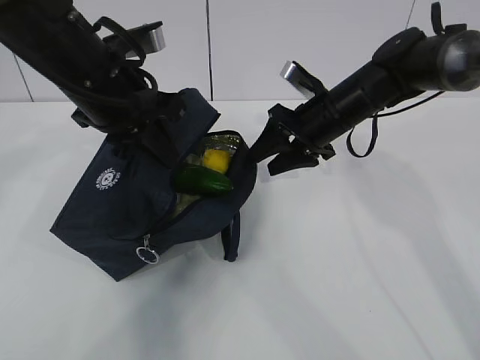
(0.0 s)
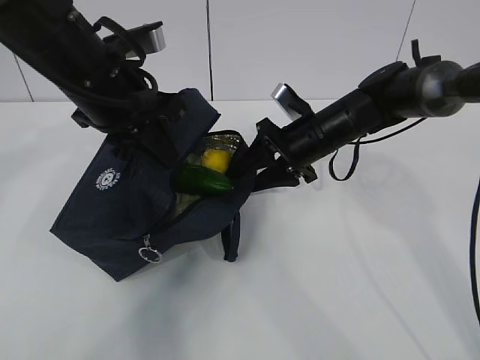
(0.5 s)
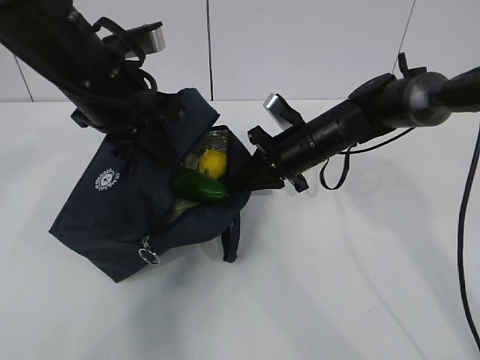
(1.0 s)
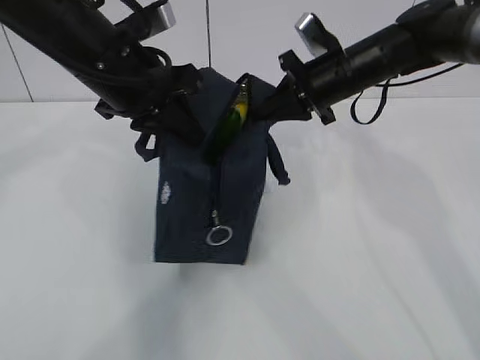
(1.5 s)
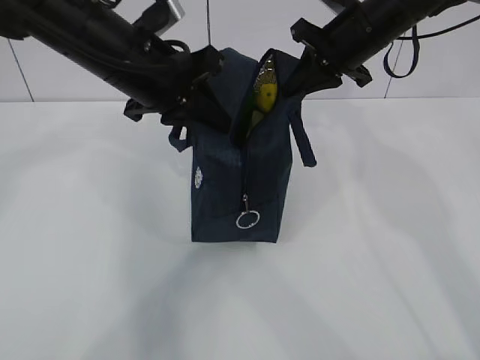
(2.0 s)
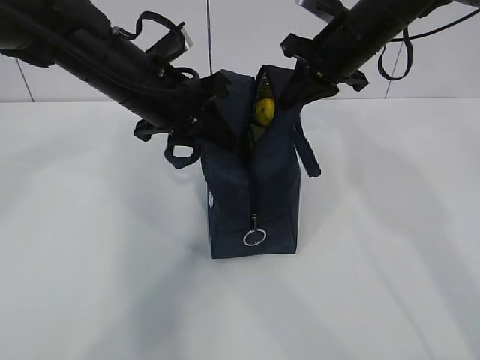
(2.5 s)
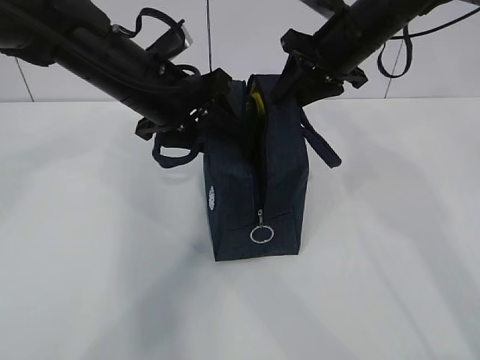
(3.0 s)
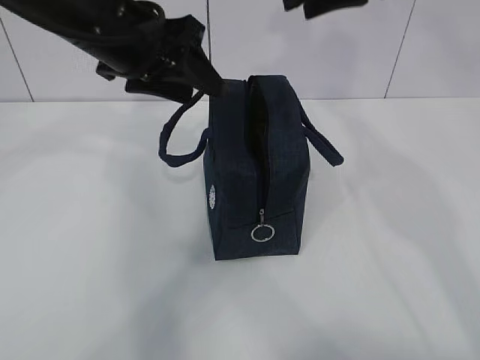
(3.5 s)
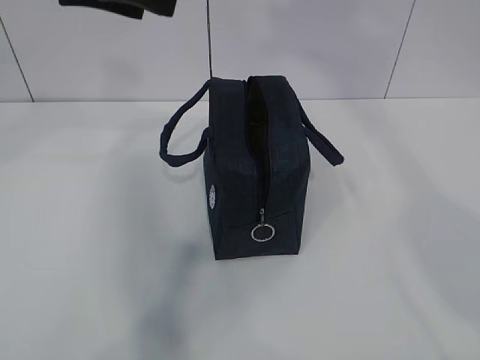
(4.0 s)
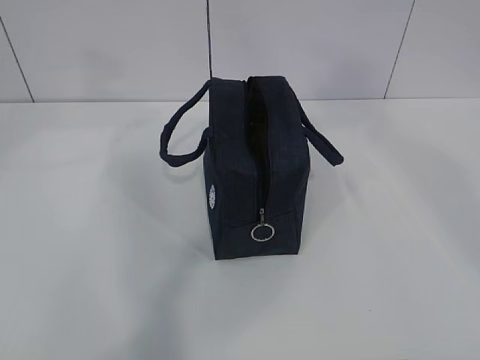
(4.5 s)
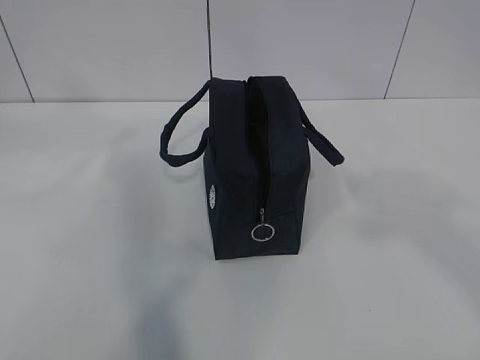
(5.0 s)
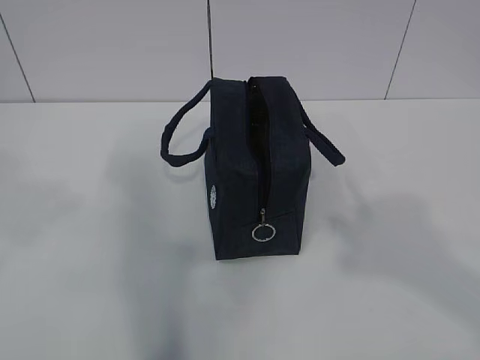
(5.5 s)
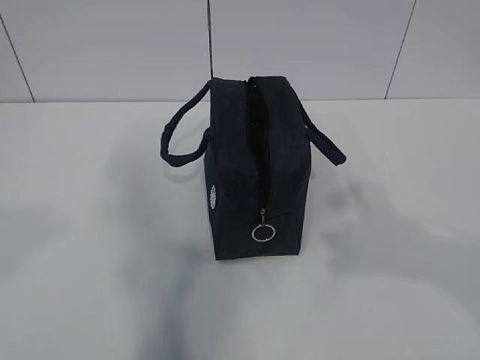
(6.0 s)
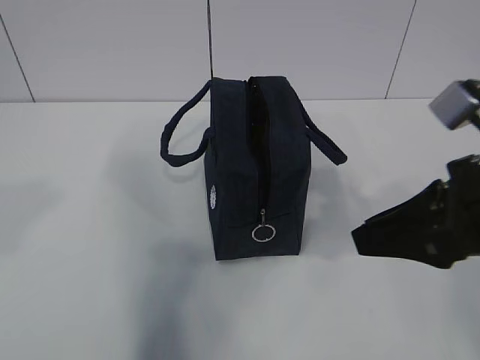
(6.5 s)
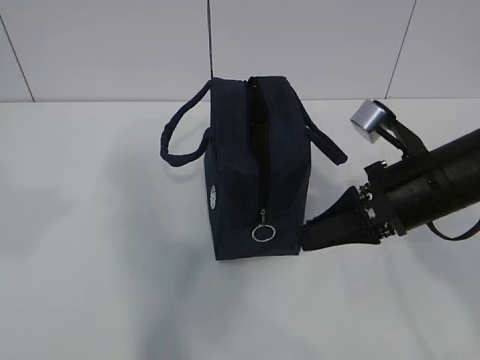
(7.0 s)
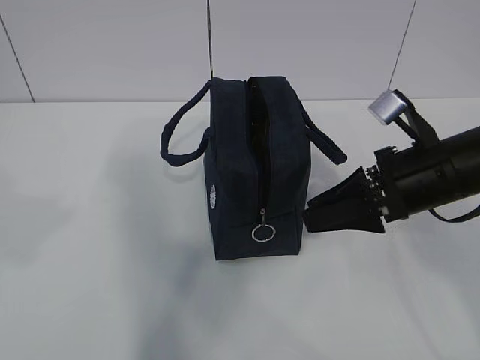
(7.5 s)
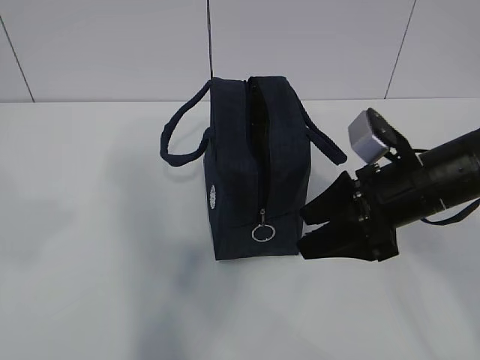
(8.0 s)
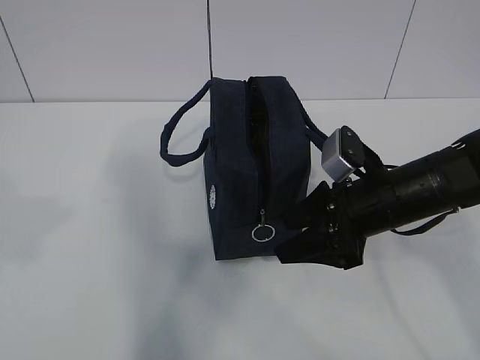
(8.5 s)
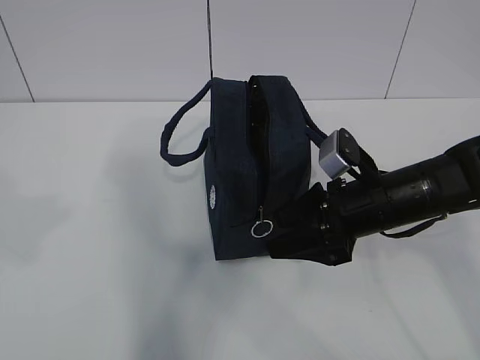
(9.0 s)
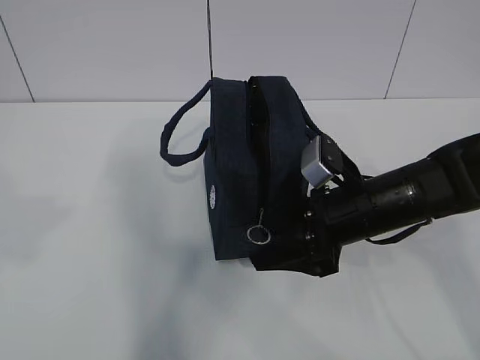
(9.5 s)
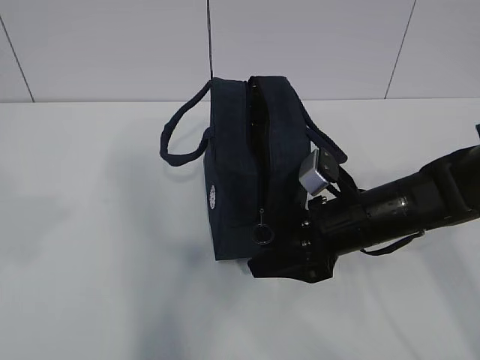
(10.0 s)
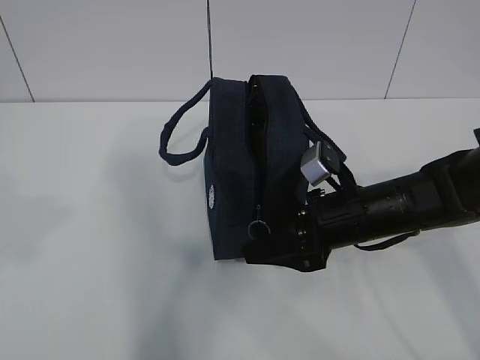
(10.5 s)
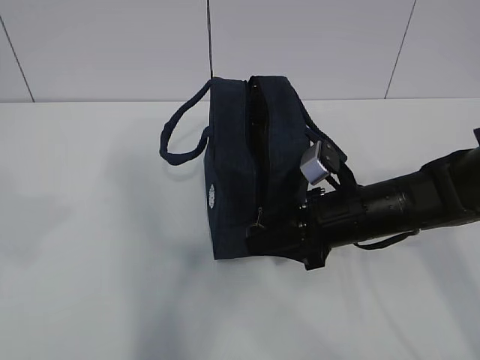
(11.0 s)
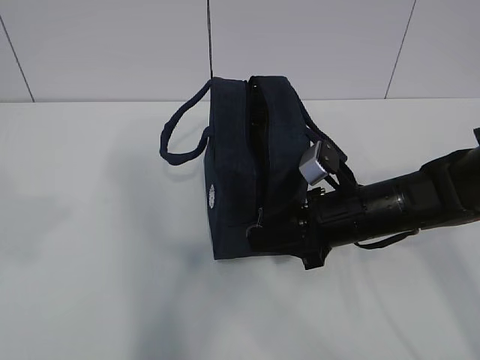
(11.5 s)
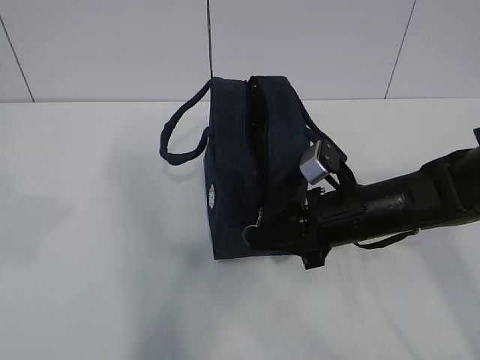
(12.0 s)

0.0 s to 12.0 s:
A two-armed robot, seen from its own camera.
0.0 to 2.0 s: The right gripper goes approximately 10 cm upward, and closes up.
2.0 to 4.0 s: The left gripper shifts about 10 cm upward, and opens up, while the right gripper is displaced upward and backward by some 35 cm, and opens.
4.0 to 6.0 s: The left gripper is displaced backward and to the left by approximately 30 cm; the right gripper moves downward and backward, about 30 cm.
6.0 to 8.0 s: The right gripper is displaced forward and downward by approximately 25 cm.
8.0 to 10.0 s: The right gripper shifts roughly 5 cm downward.
10.0 to 12.0 s: The right gripper closes its fingers.

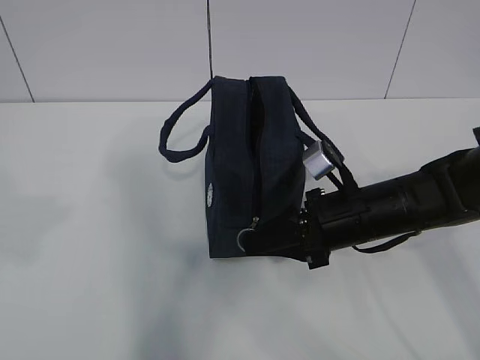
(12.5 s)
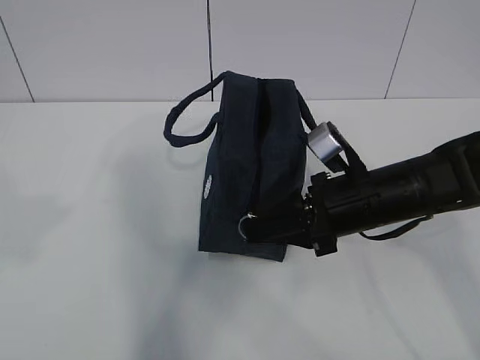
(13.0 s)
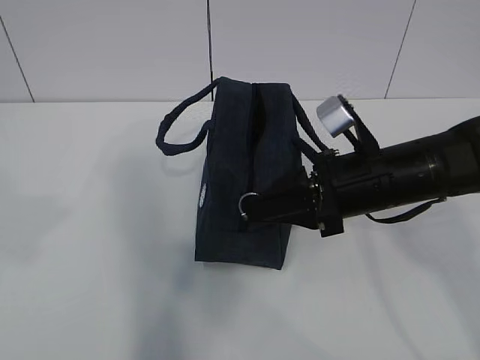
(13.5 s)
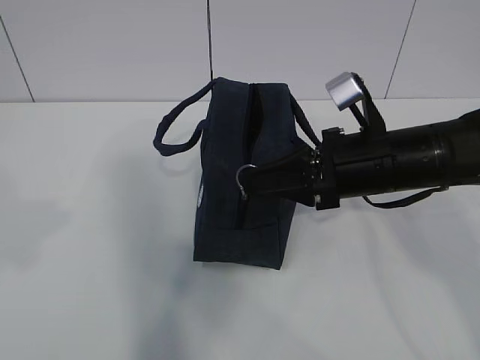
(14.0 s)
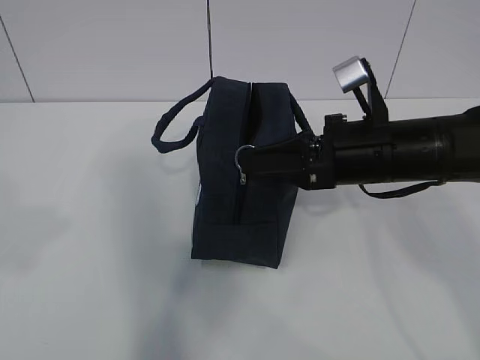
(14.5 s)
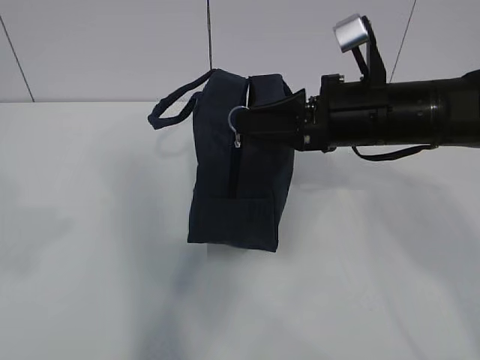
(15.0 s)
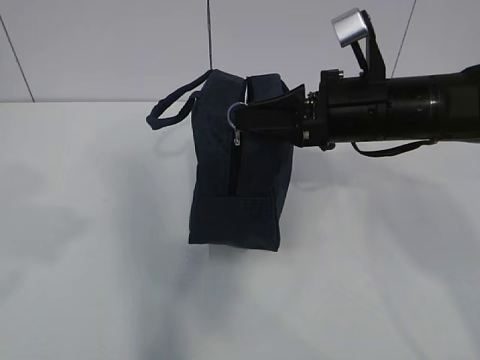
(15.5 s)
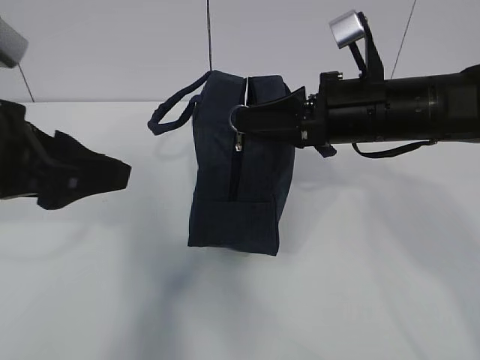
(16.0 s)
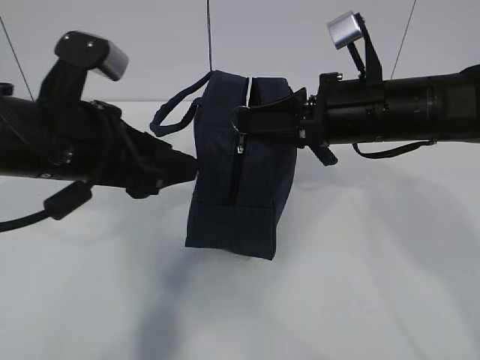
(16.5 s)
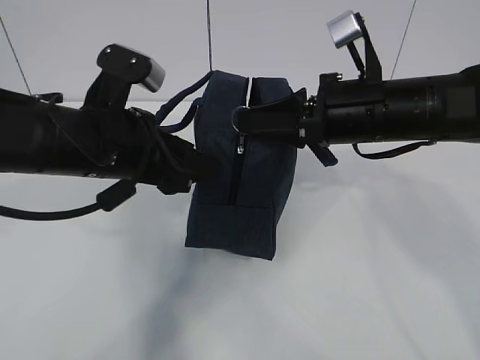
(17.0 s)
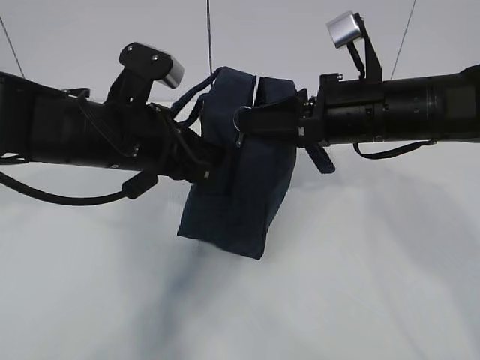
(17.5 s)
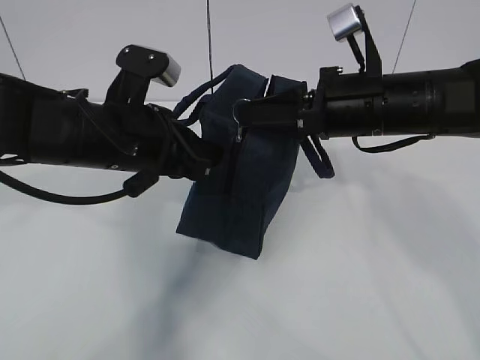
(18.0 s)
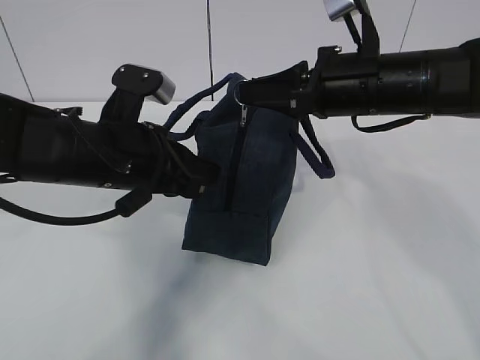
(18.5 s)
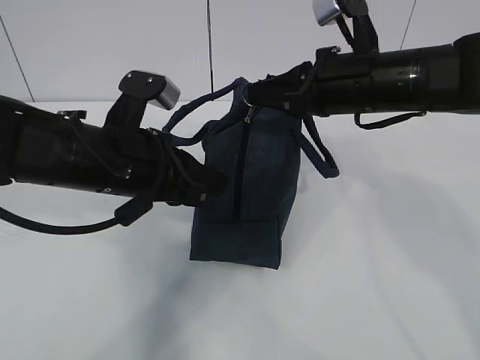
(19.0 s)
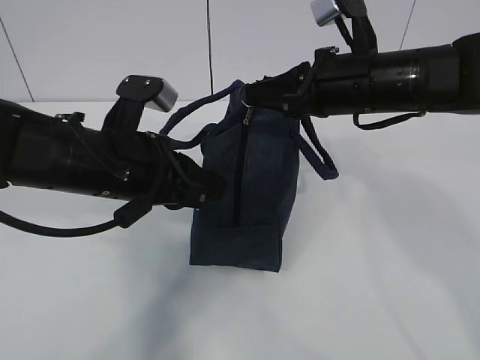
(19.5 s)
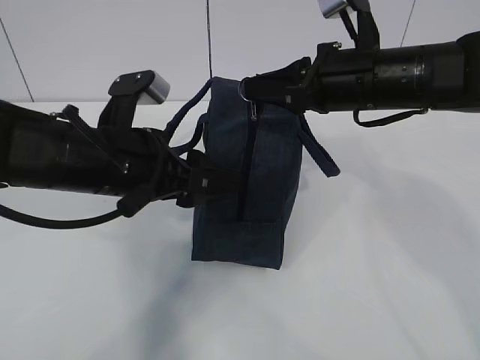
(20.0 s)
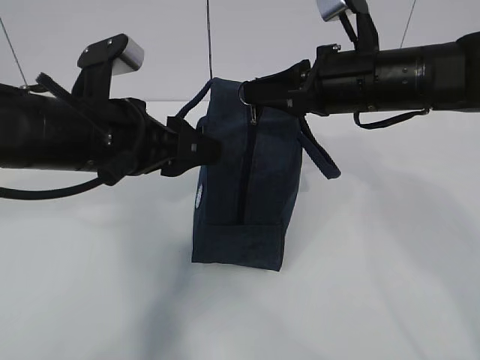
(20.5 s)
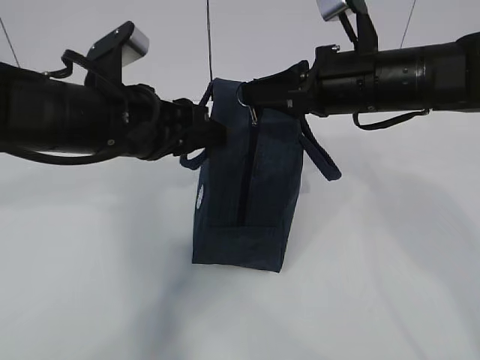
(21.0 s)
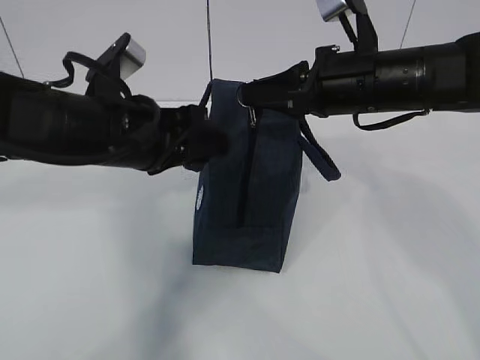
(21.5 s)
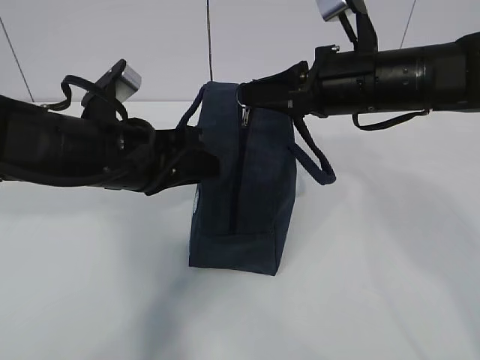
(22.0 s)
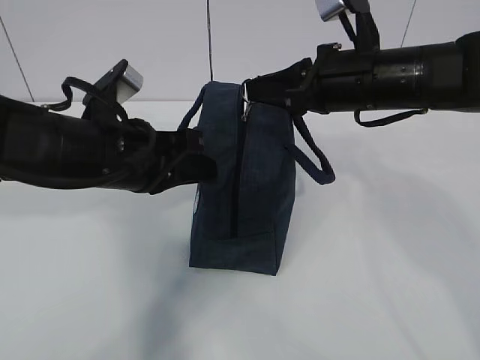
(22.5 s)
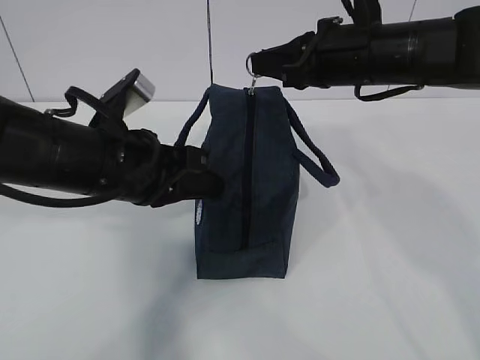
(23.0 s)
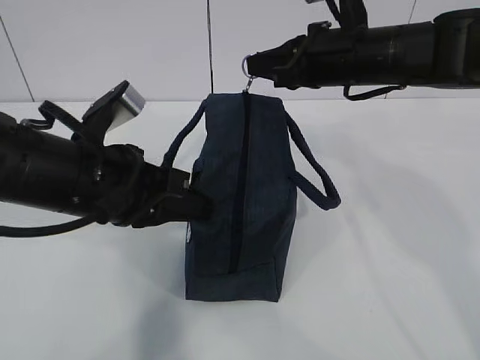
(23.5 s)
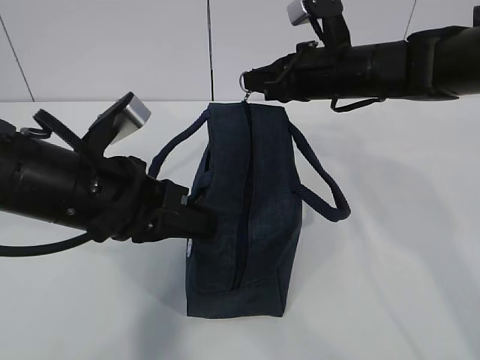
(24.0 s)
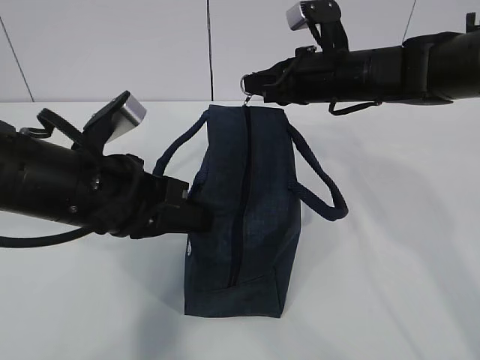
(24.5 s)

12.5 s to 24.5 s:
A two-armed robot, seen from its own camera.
Step, 21.0 to 21.5 s: Grab the lunch bag with your left hand.
12.5 to 14.5 s: The right gripper goes about 10 cm upward.
14.5 to 16.5 s: The left gripper goes approximately 25 cm forward, downward and to the right, and opens up.
16.5 to 18.5 s: The left gripper moves some 5 cm, and closes its fingers.
18.5 to 20.5 s: The left gripper opens up.
20.5 to 22.5 s: The left gripper closes up.
22.5 to 24.5 s: The right gripper shifts some 5 cm forward.

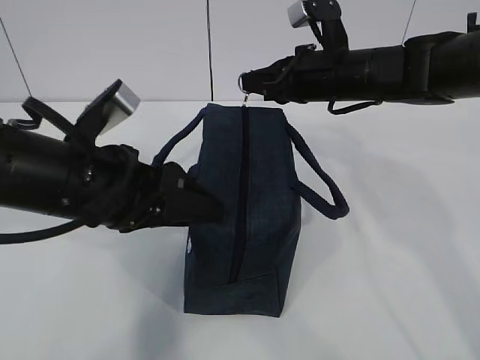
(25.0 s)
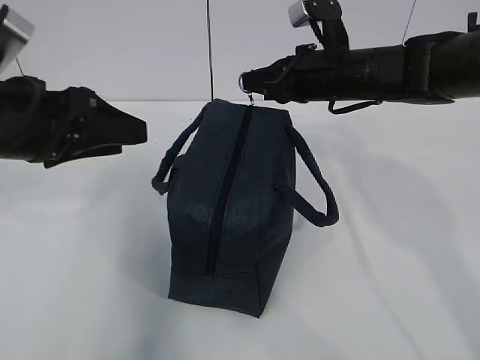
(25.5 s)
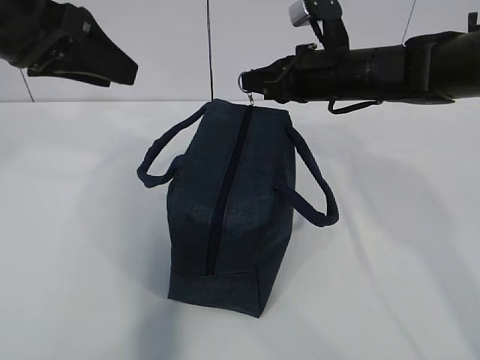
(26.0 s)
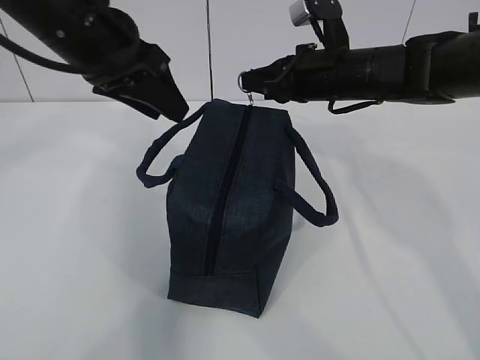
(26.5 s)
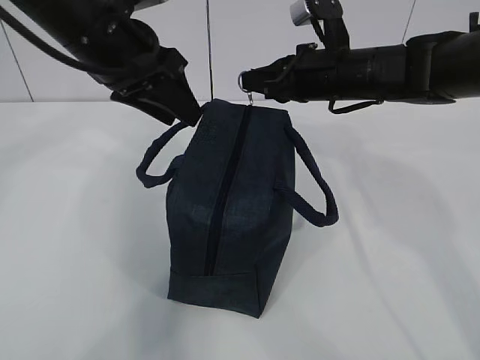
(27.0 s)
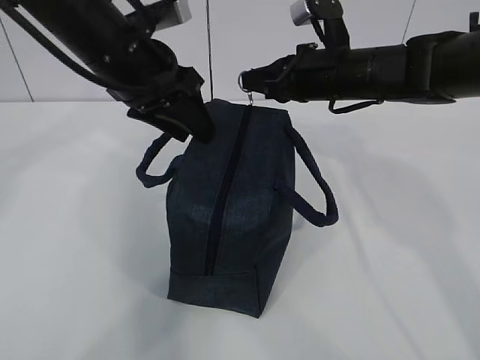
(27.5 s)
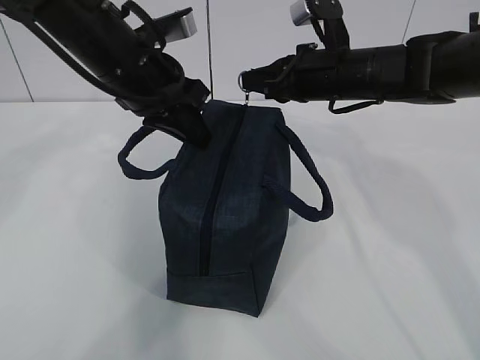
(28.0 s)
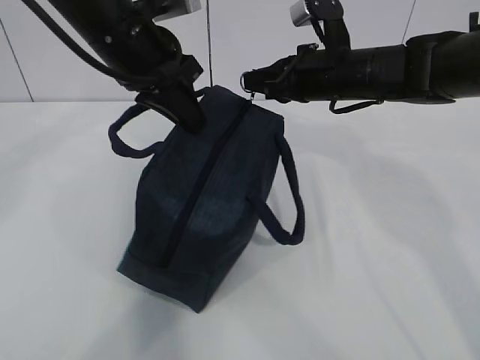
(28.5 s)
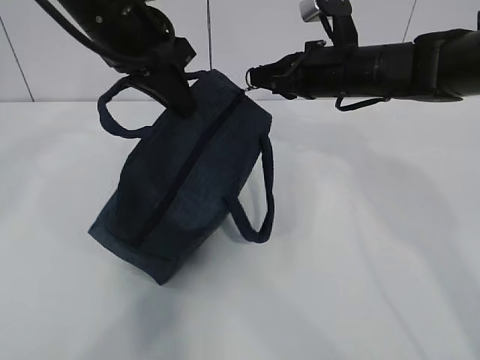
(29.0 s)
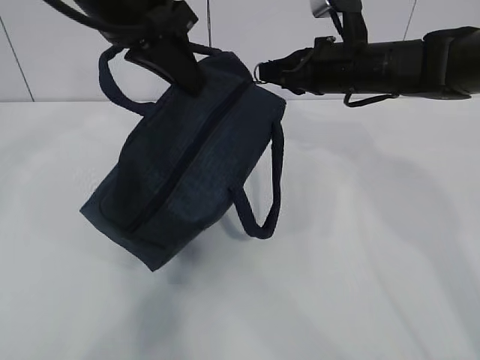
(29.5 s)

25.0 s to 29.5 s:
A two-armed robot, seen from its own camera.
25.0 to 27.0 s: The left gripper travels forward and upward by about 15 cm.
27.0 to 29.5 s: The left gripper changes place by about 5 cm, and closes.
